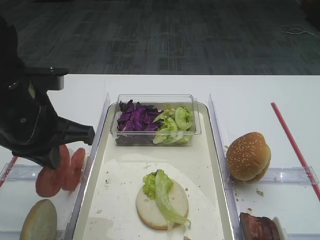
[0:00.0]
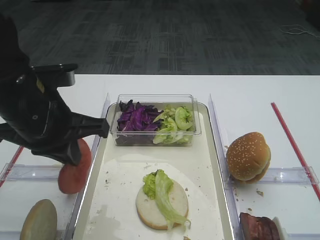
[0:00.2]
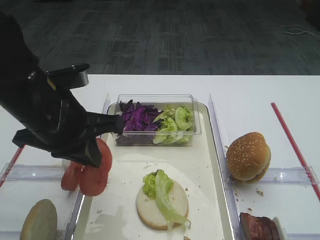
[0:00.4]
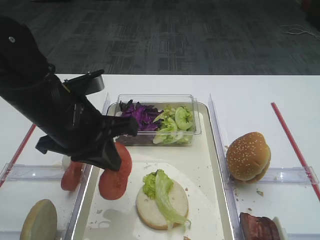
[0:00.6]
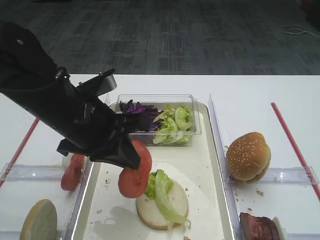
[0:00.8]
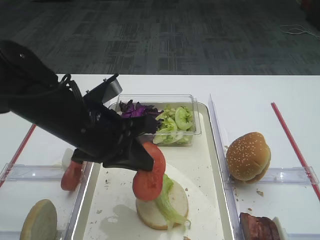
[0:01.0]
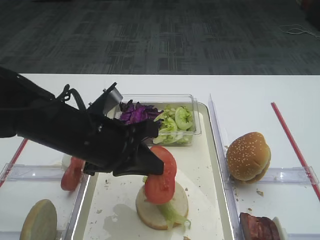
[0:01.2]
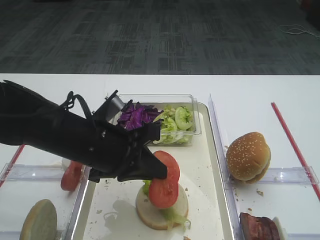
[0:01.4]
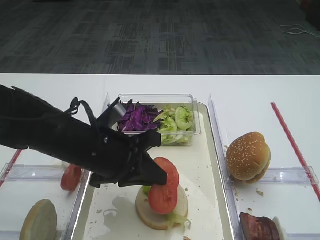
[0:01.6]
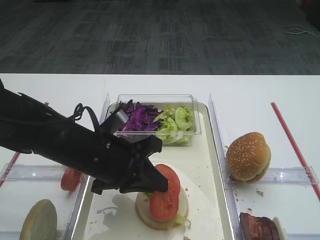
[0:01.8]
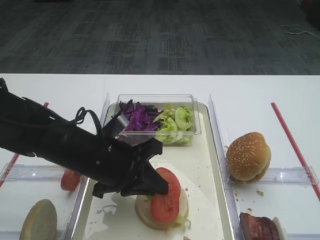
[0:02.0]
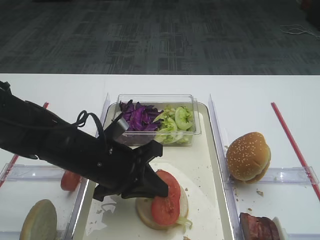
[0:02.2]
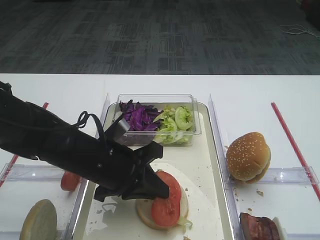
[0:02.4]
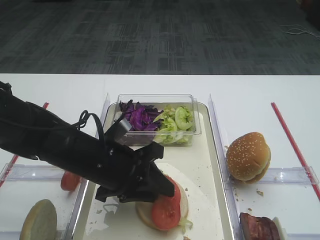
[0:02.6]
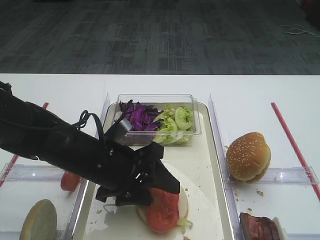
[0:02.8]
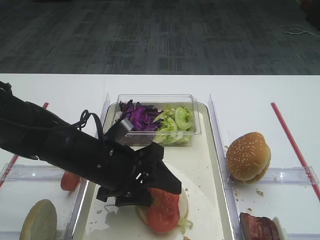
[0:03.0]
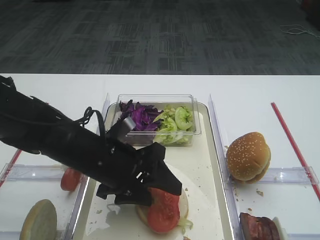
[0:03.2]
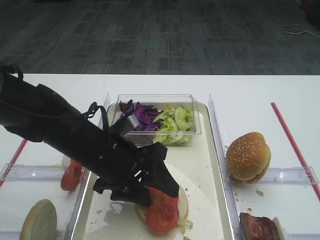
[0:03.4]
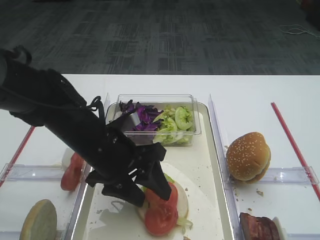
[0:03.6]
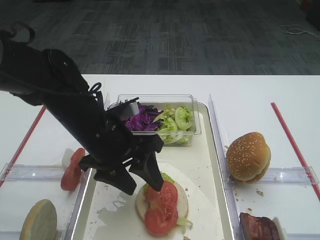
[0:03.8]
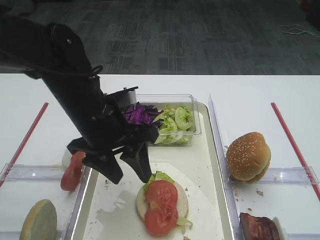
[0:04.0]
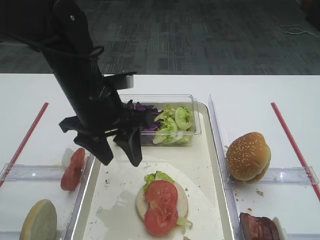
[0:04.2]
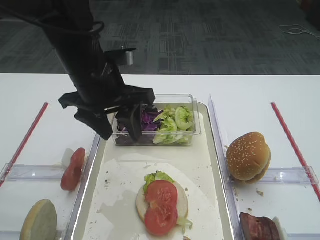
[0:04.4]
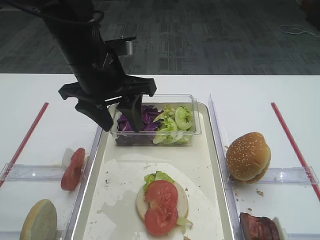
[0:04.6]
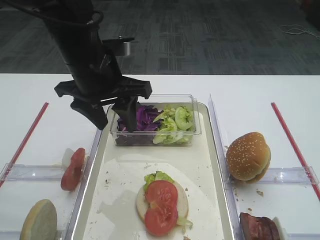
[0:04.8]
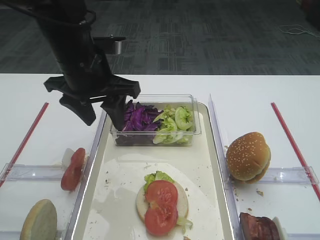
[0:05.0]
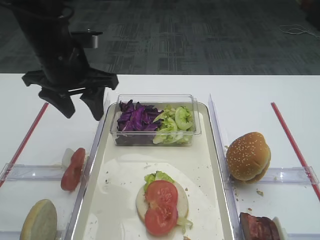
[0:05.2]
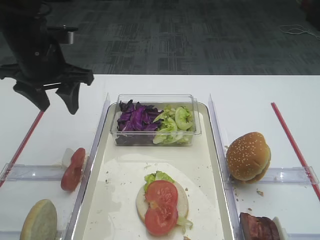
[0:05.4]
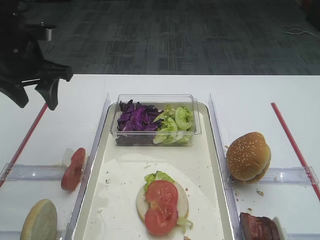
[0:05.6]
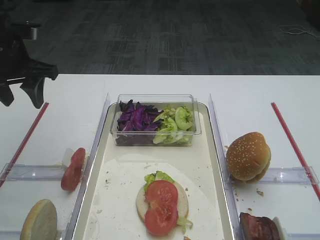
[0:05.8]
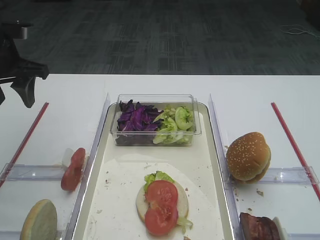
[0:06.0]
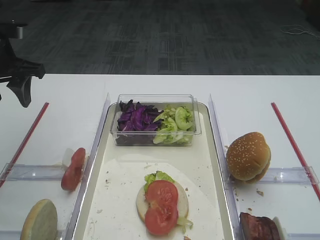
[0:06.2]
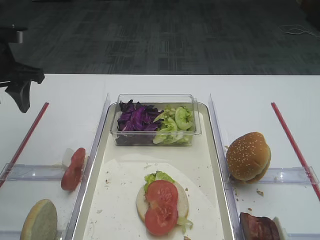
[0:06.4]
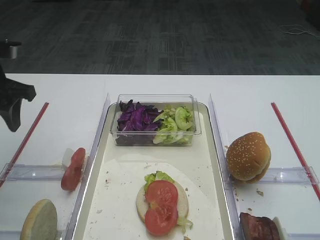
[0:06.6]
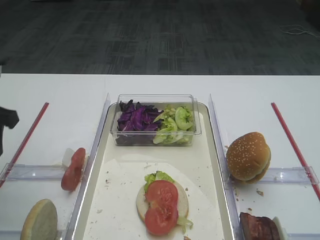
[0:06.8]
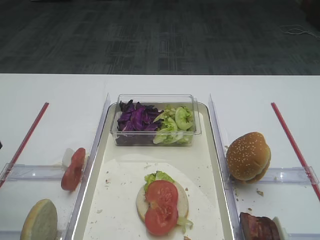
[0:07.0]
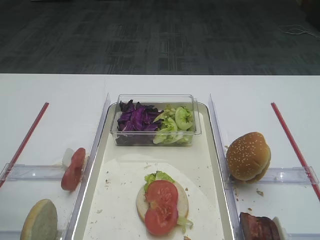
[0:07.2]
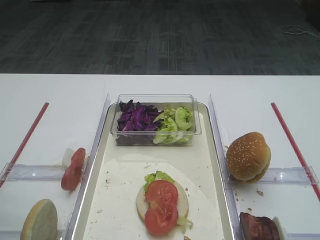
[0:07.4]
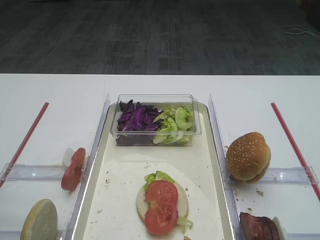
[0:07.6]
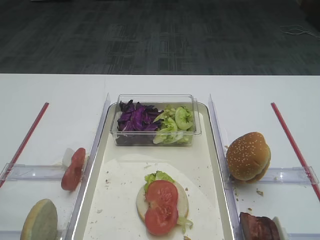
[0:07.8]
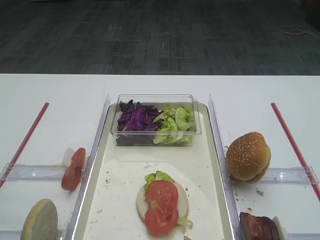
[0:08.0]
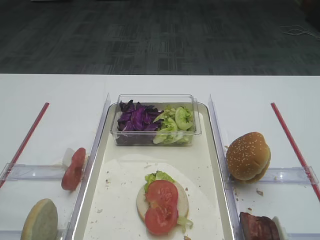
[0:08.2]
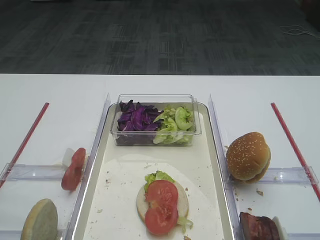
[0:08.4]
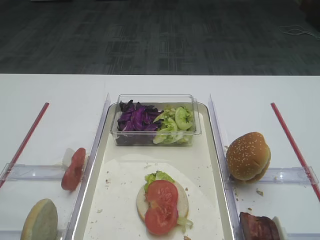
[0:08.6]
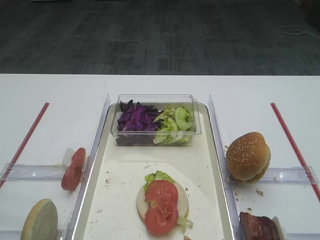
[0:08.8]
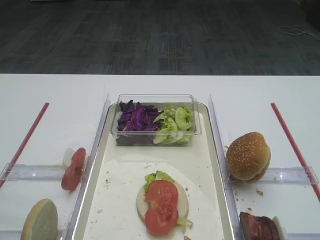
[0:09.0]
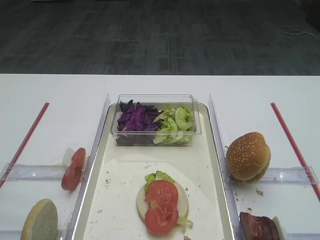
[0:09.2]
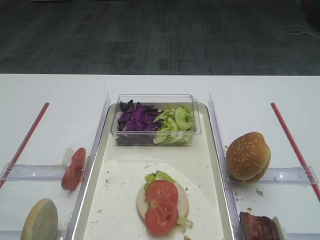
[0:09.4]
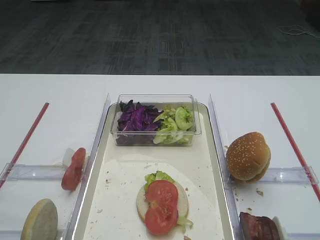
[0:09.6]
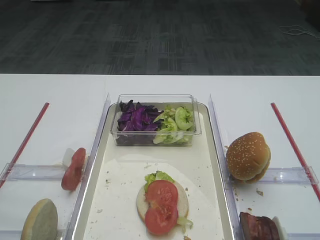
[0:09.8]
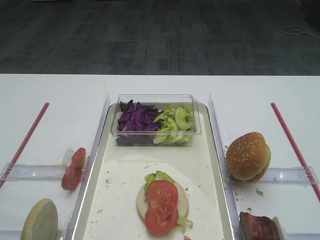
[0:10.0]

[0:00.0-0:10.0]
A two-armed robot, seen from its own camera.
Step, 0:00.0 to 0:03.8: Place the tomato slice on the lettuce leaf with the left gripper.
0:00.0 to 0:01.4: The left gripper is displaced to the right and downward by approximately 10 cm.
0:01.4 to 0:02.8: The left gripper opens.
0:02.8 to 0:04.2: The left gripper moves upward and forward, some 10 cm.
0:04.2 to 0:05.8: The left gripper moves to the left and forward, about 15 cm.
0:05.8 to 0:07.2: The left gripper shifts roughly 20 cm backward.

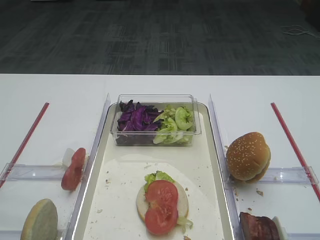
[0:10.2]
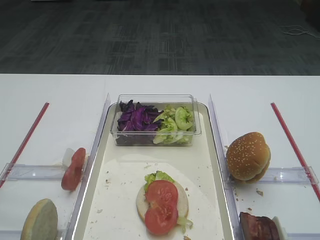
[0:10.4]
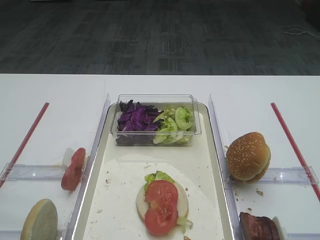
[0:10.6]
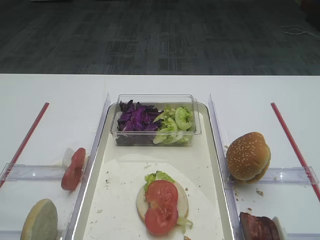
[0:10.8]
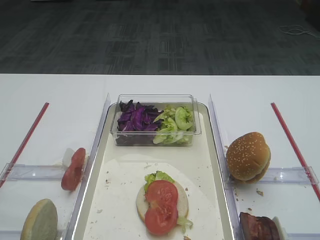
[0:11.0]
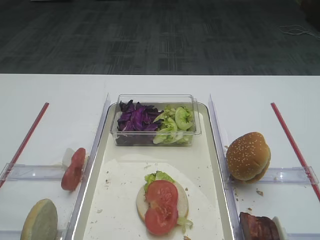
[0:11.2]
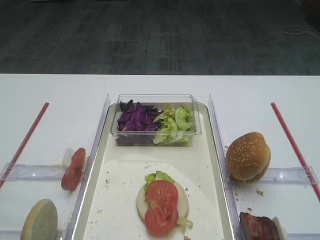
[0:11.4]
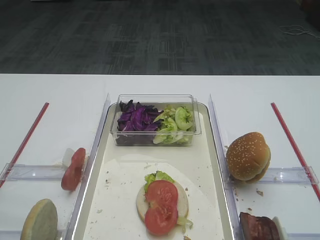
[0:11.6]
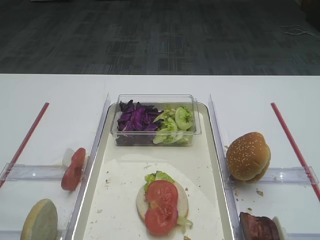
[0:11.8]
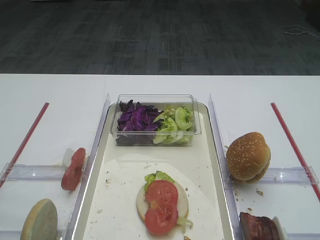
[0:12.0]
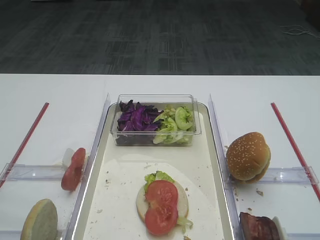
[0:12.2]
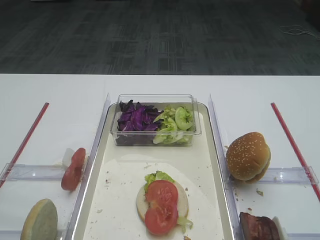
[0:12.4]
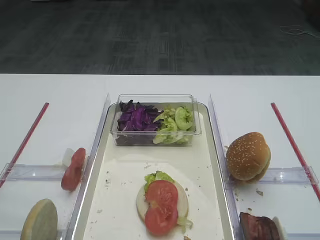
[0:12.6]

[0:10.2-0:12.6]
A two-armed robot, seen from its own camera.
0:10.2 to 0:12.6: The two grippers keep their place.
